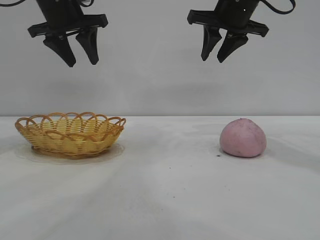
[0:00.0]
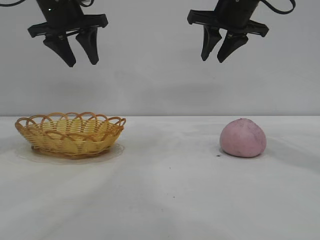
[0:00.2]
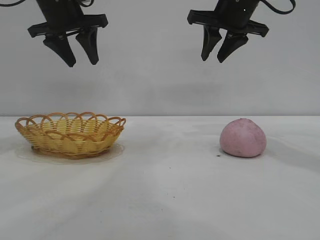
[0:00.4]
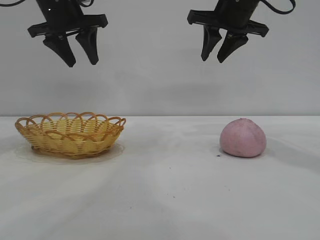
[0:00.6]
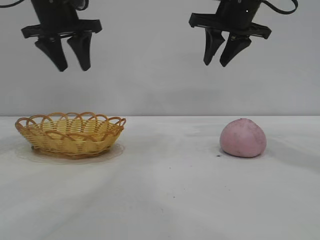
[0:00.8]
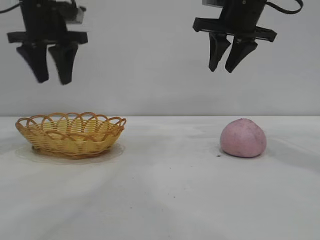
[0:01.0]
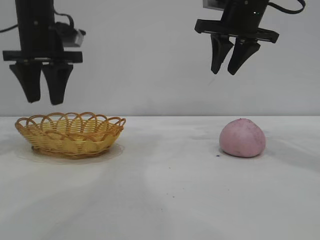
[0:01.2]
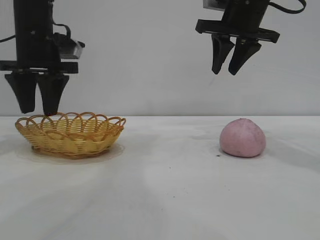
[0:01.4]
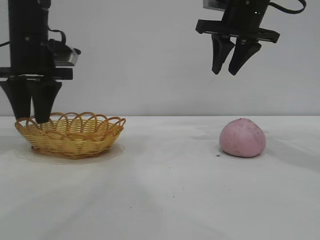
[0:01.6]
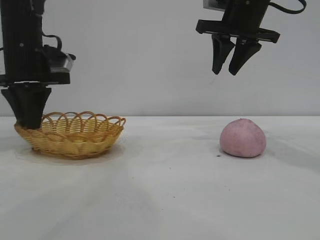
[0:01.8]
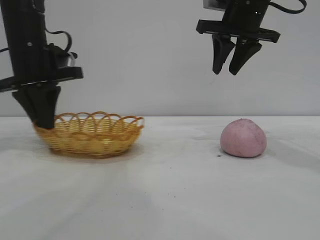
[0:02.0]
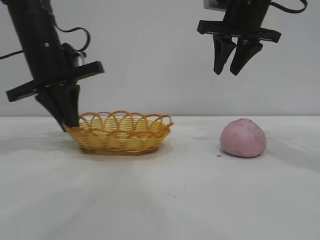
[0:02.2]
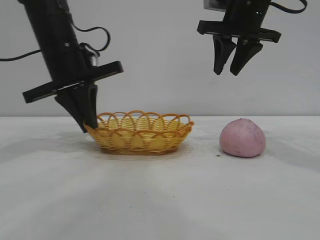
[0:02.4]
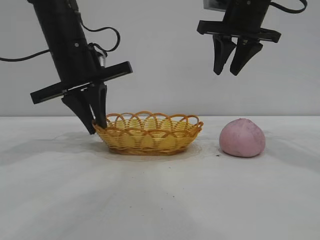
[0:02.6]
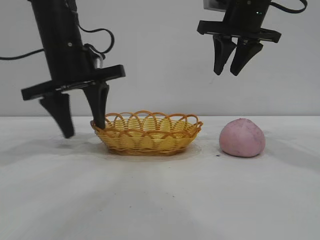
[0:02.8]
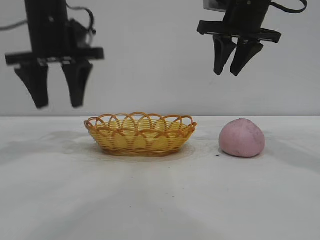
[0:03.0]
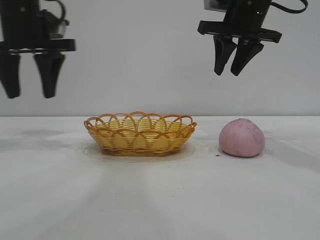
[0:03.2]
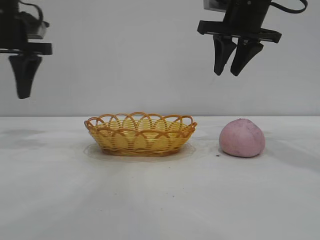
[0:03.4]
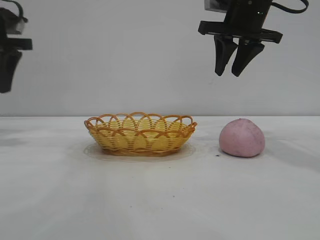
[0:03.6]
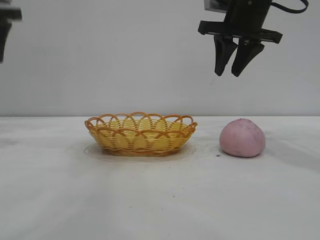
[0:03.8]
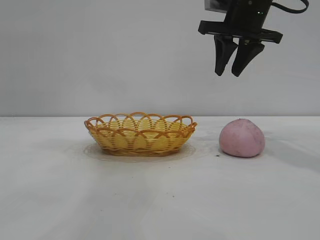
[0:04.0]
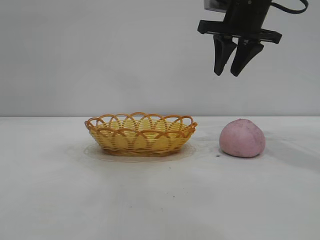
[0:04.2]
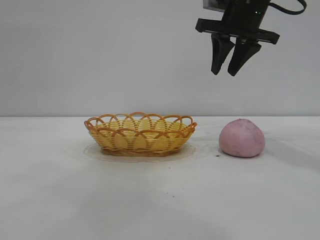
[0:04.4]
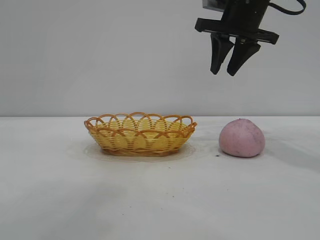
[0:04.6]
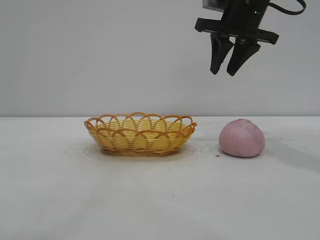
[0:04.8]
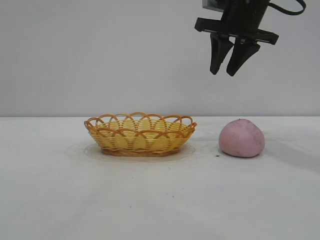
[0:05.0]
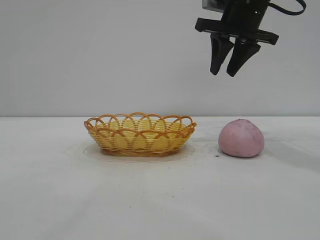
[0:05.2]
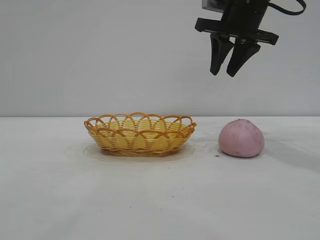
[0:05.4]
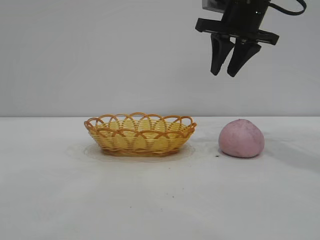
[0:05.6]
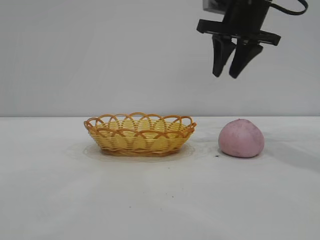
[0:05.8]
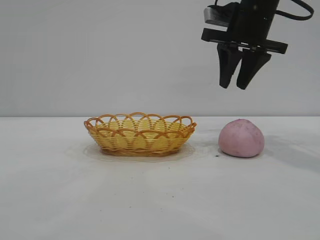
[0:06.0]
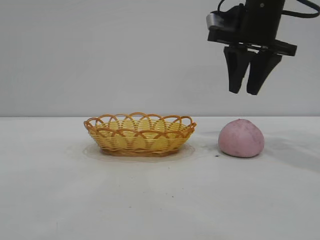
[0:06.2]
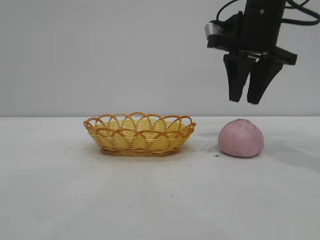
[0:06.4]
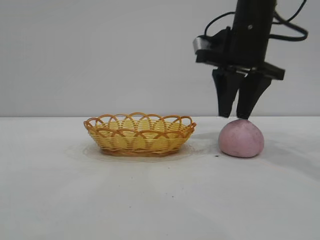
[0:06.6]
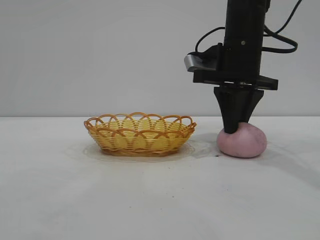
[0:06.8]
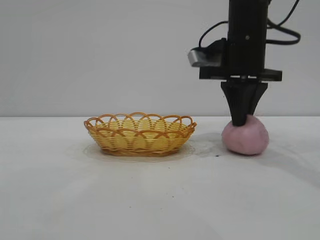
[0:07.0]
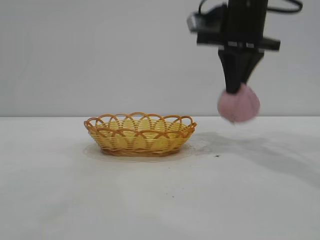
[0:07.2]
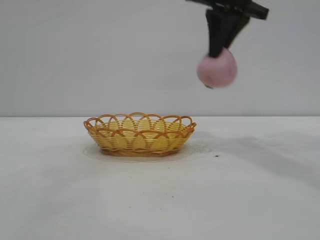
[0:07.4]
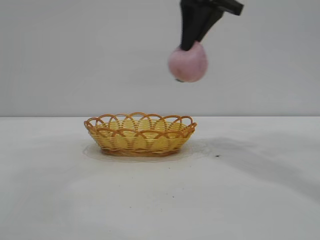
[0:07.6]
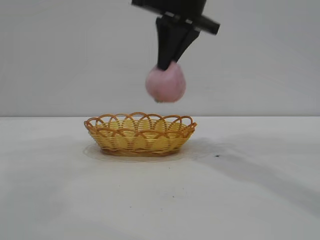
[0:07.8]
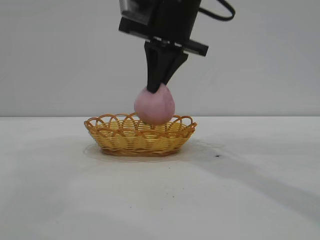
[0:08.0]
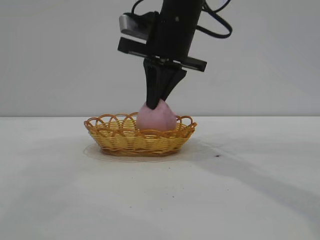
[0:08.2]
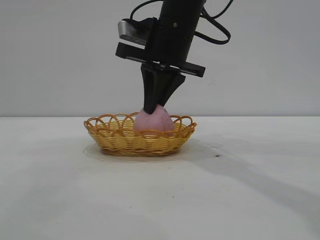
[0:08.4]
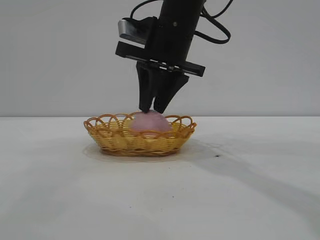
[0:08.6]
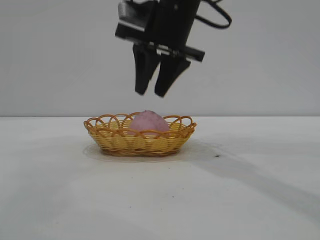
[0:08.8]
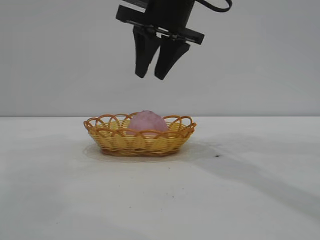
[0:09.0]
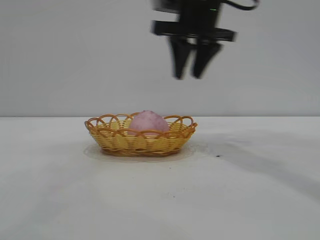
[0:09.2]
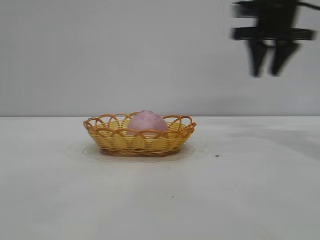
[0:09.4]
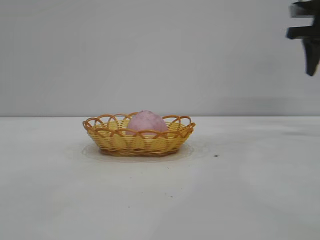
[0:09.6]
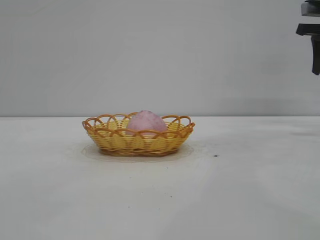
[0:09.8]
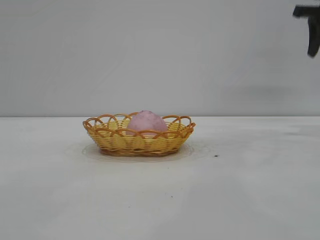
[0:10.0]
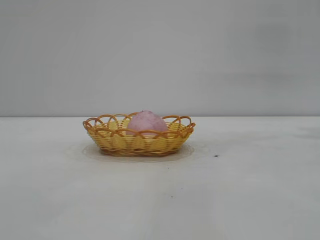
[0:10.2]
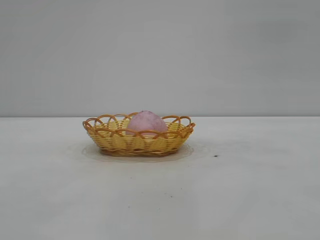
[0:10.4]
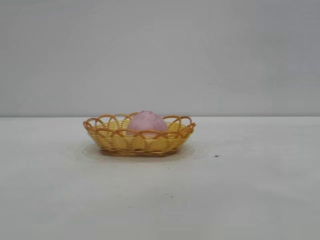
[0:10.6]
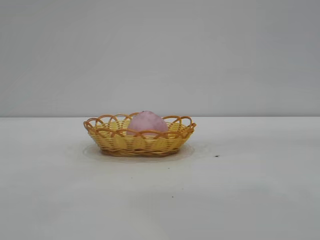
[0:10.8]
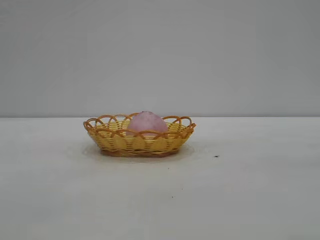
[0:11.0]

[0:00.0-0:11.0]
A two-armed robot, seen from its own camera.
Task of the whole recording: pick up the peach and put it into the basket.
Step, 0:00.0 to 0:02.8: Move the basket to the center of view.
Step, 0:03.2 to 0:07.0: Pick up the peach.
Step, 0:07.4 to 0:08.8: place the peach into the basket.
